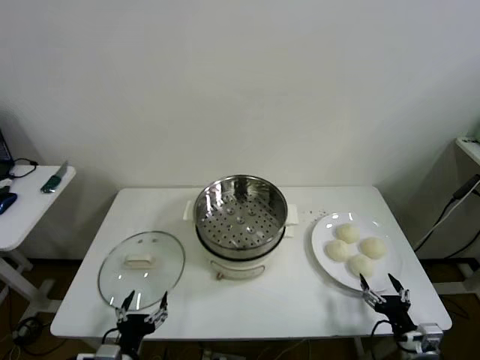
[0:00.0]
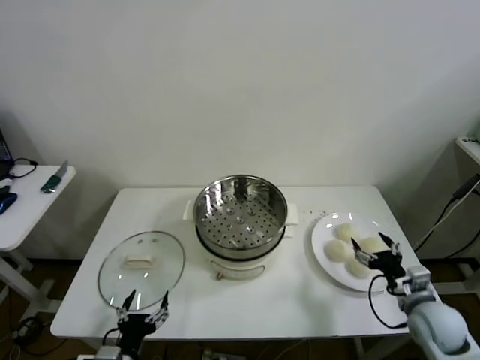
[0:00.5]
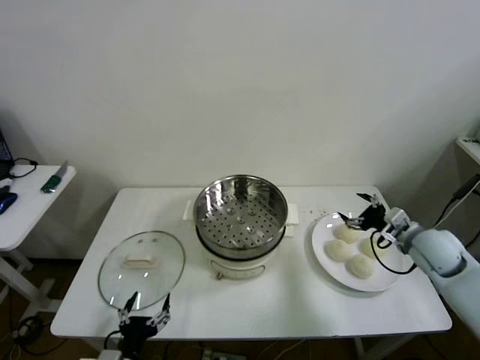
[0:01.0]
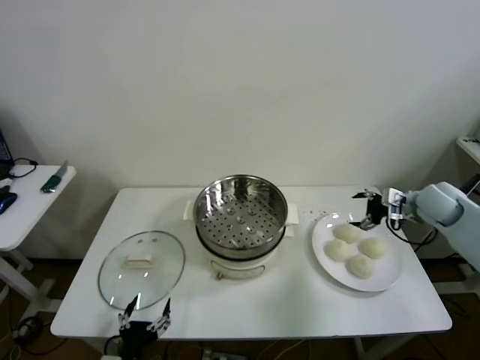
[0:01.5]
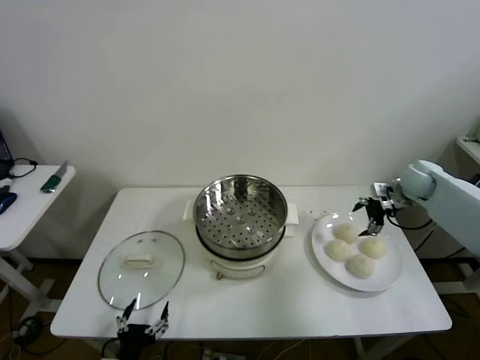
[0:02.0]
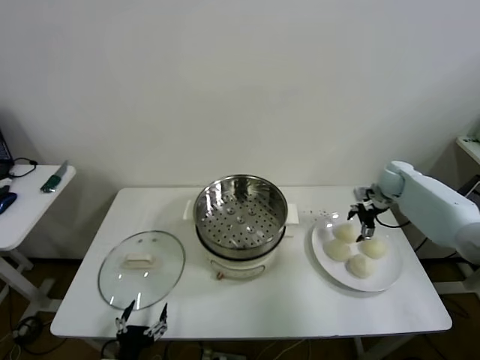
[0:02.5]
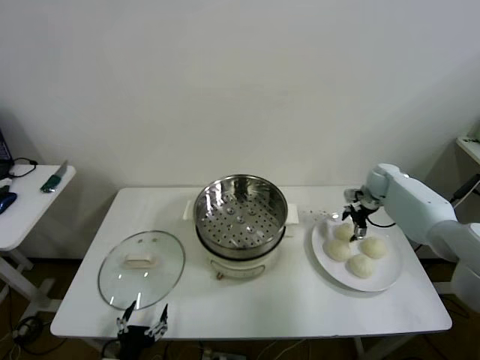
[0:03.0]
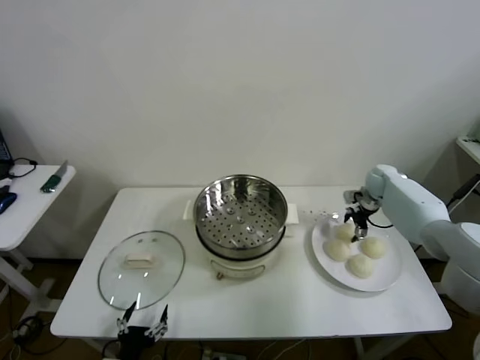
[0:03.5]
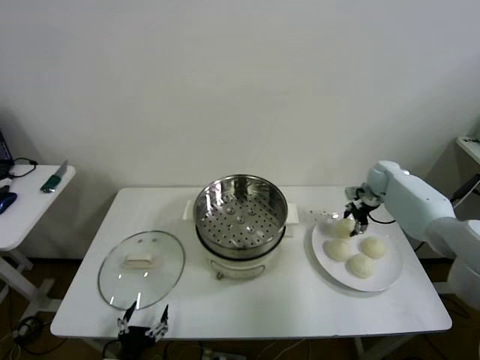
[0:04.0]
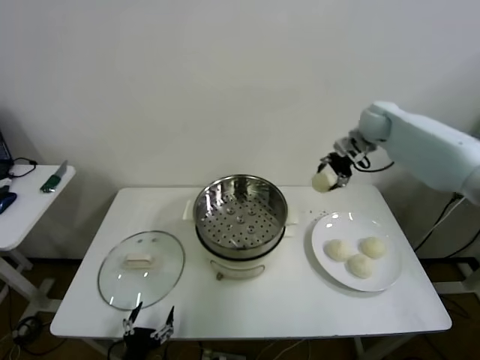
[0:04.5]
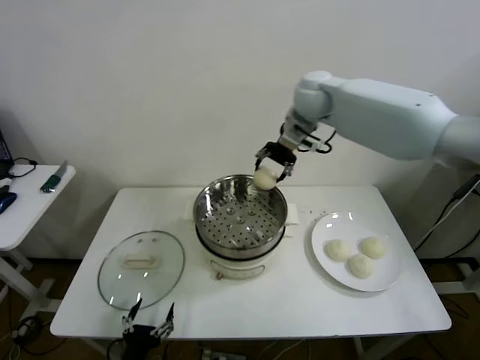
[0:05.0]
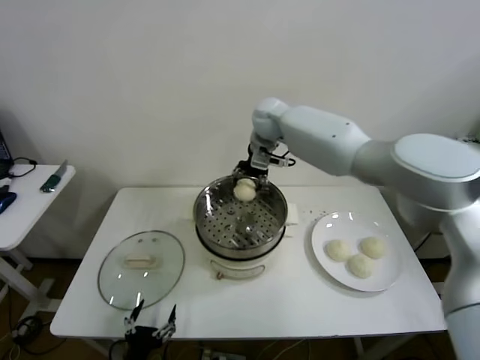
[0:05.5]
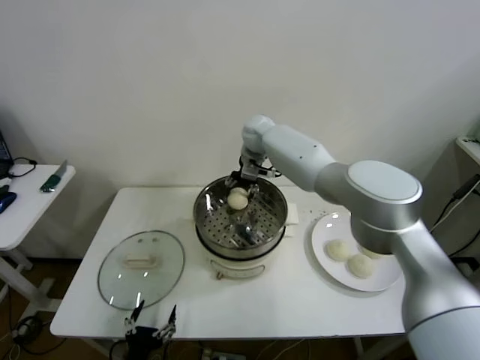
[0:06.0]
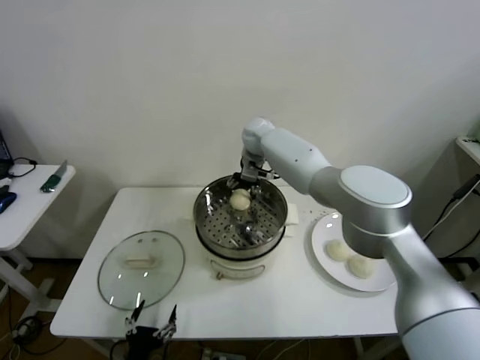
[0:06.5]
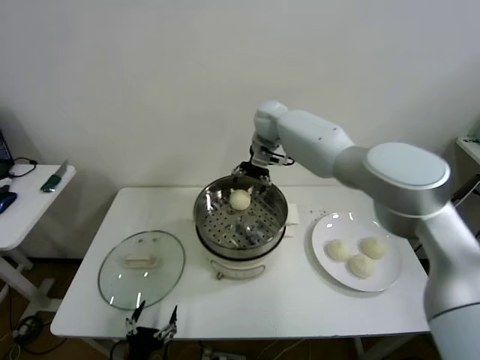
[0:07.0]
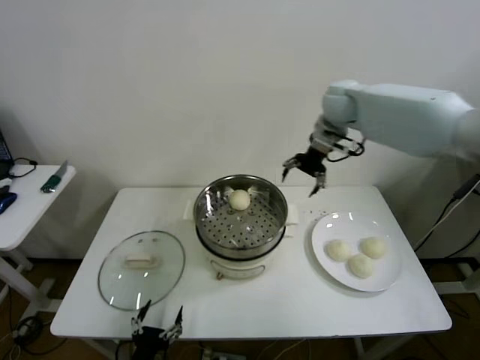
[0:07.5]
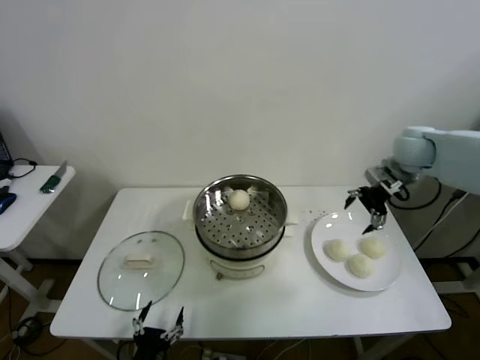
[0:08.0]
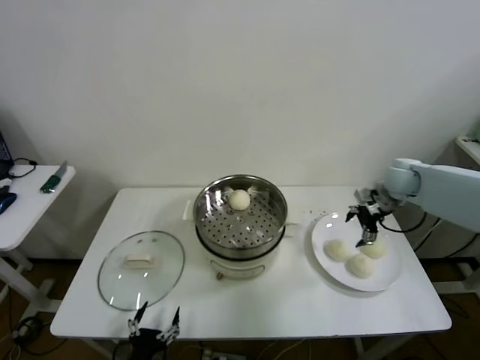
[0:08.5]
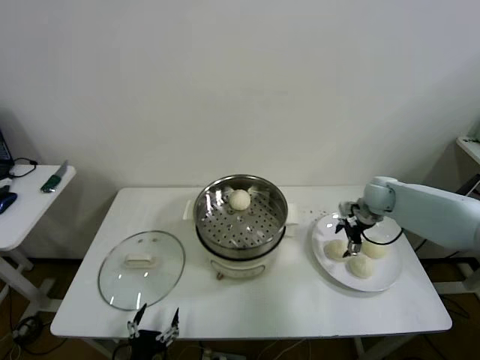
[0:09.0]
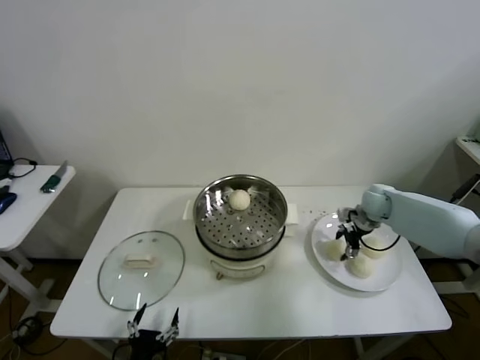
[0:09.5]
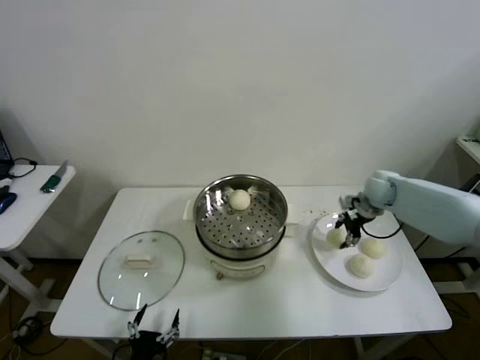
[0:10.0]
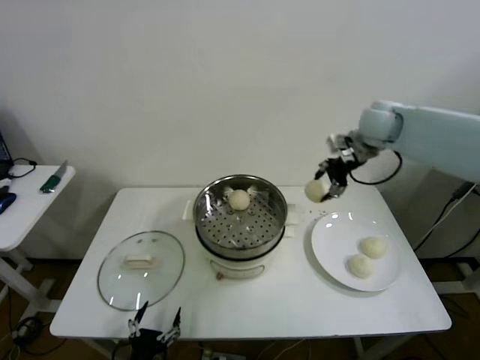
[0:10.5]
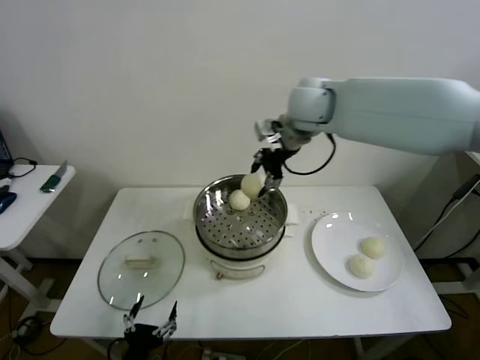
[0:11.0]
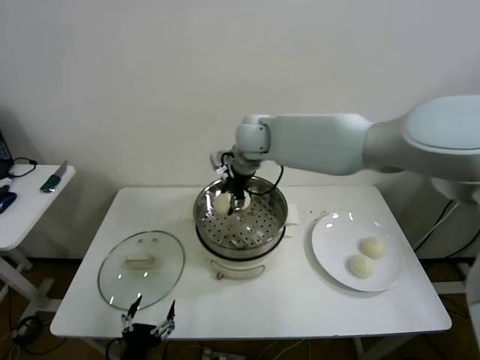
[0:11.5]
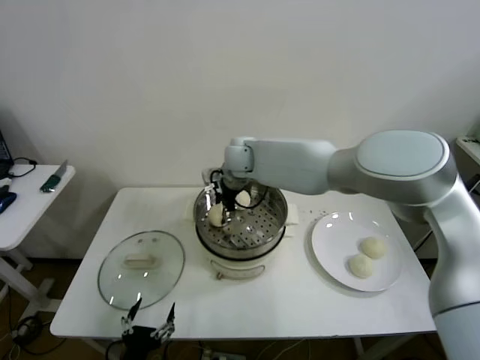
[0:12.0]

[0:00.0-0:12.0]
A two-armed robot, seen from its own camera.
Step, 0:00.0 to 0:03.5: Grasp the baozi in the plate with right gripper.
Step, 0:04.0 to 0:06.5: Place the baozi on the steamer with right gripper.
Step, 0:07.0 to 0:09.0: Grasp the baozi in the plate with right gripper.
0:02.0 to 0:04.0: The right gripper heads forward and downward, covering about 10 cm, and closes.
0:04.0 to 0:06.0: The right gripper moves to the left, some 35 cm.
0:06.0 to 0:08.0: The right gripper moves to the right, some 35 cm, and opens up.
0:08.0 to 0:10.0: The right gripper travels downward by approximately 15 cm, and closes up.
0:10.0 to 0:12.0: The right gripper heads to the left, covering some 35 cm.

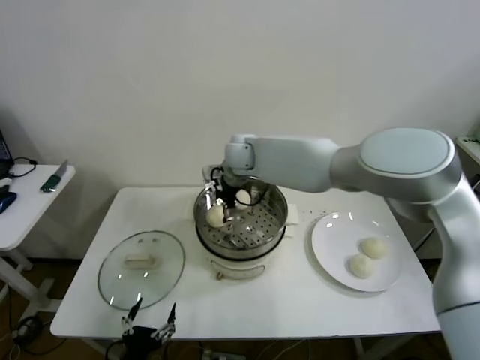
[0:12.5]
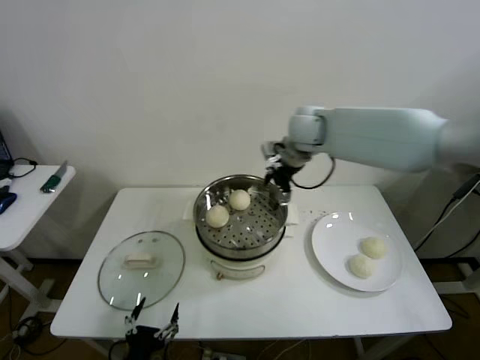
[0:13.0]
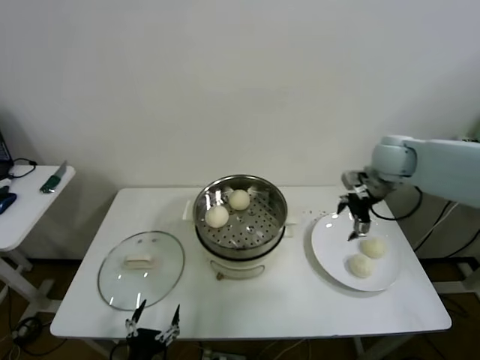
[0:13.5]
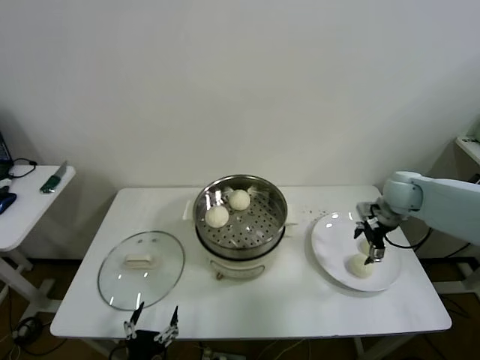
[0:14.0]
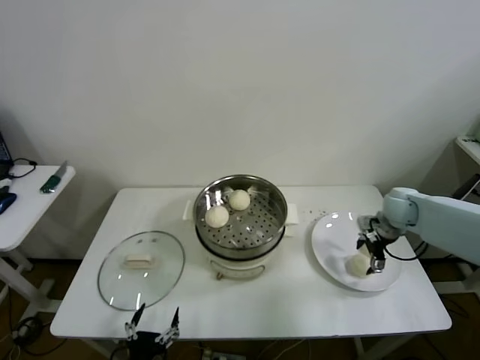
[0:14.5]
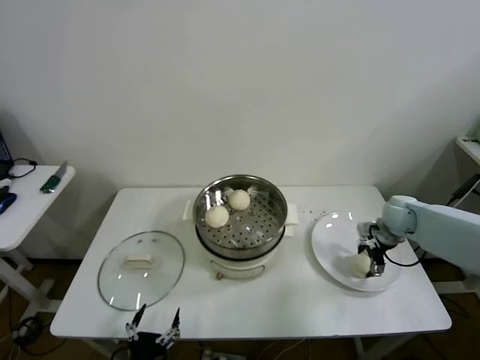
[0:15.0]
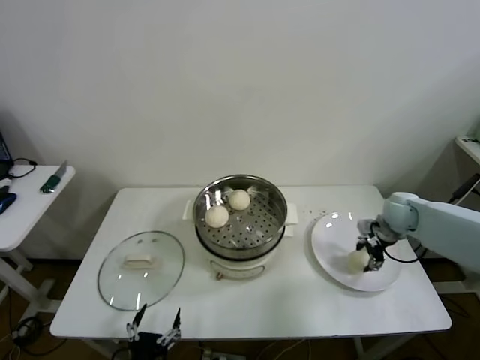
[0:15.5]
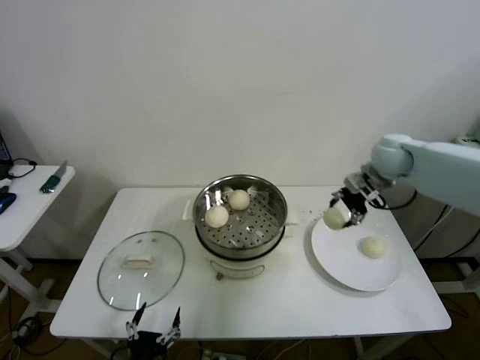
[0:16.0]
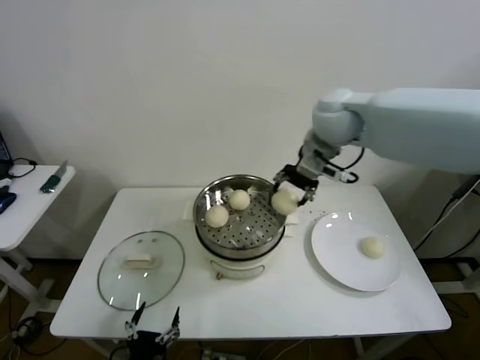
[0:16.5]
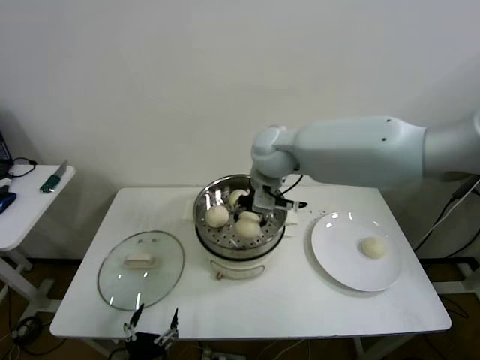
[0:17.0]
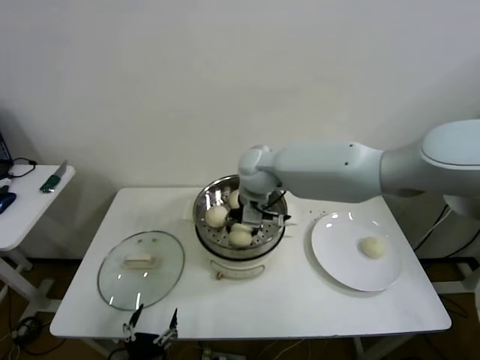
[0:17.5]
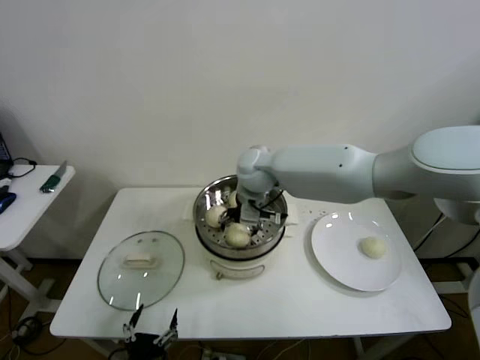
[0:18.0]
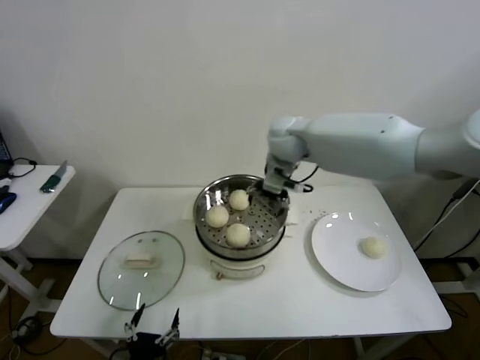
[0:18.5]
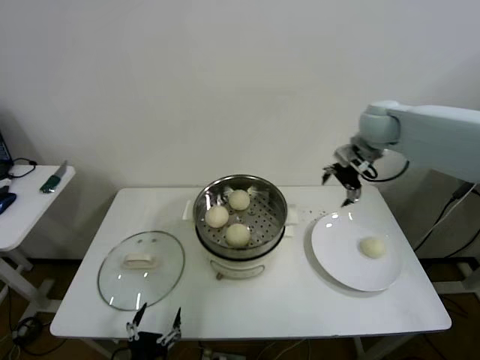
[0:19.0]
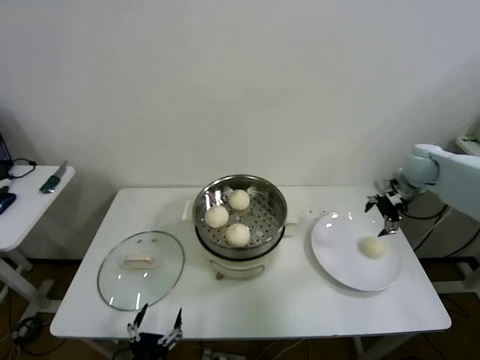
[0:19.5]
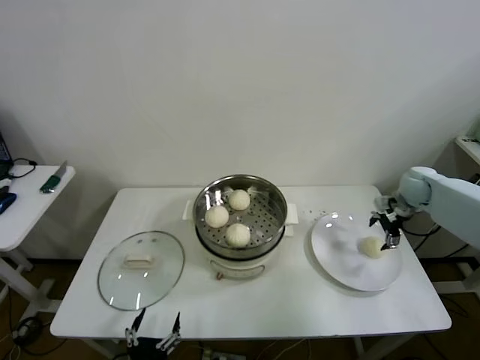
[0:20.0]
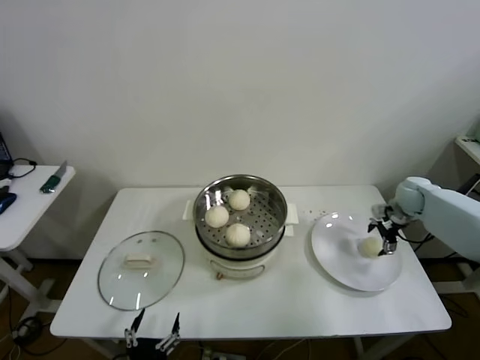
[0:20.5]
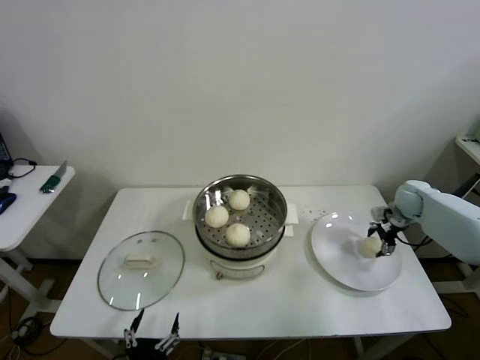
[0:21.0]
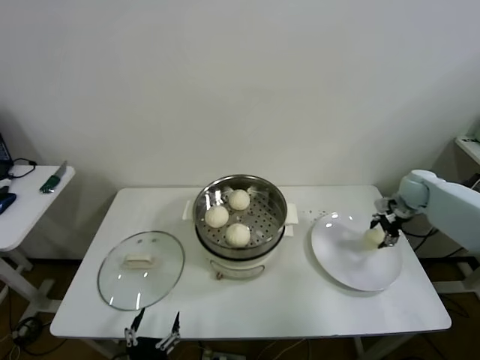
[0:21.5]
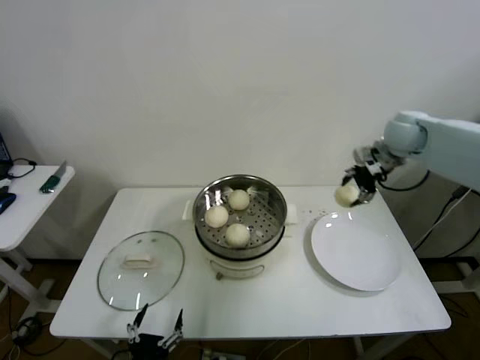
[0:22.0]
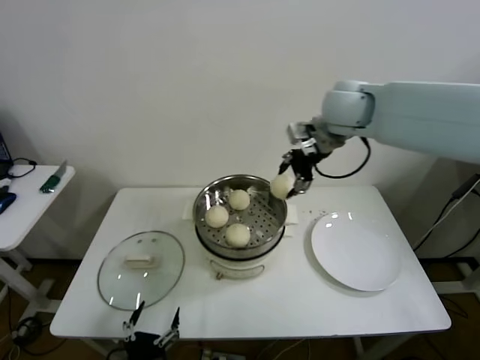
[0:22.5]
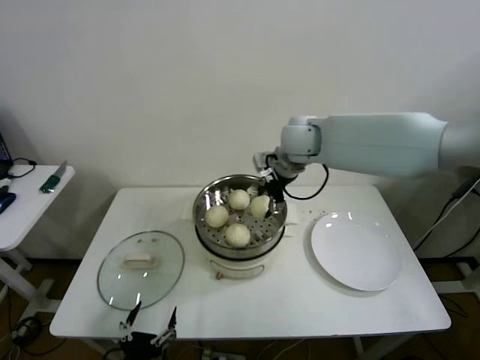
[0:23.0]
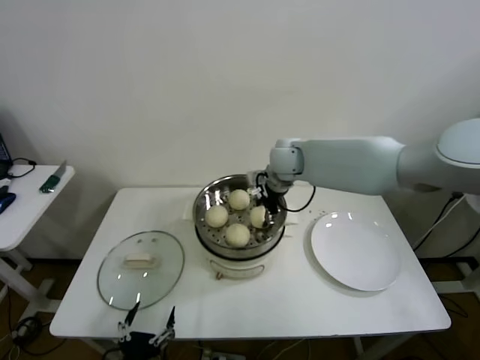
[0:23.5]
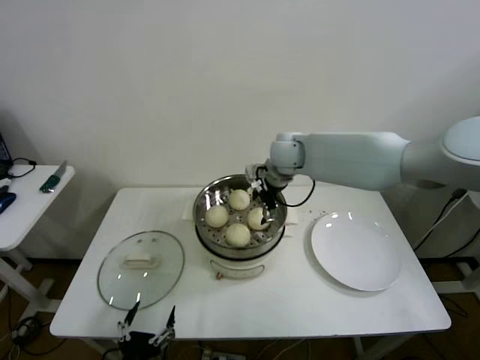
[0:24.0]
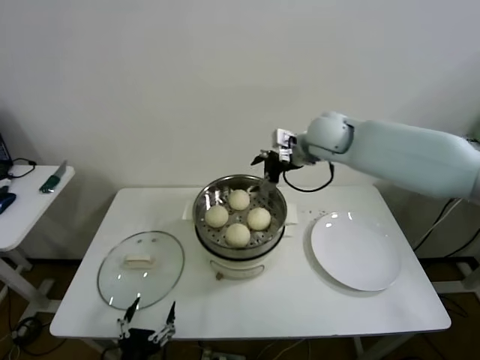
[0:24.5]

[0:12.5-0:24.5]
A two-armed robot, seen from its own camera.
Step, 0:12.5 to 0:15.0: Grasp the baozi in the plate with right gripper.
Step, 0:15.5 to 0:17.5: Place the baozi on the steamer with right gripper.
Step, 0:18.0 to 0:21.0: Grasp the baozi in the plate with right gripper.
Step, 0:21.5 to 0:23.5: Place the baozi on the steamer with right gripper.
0:12.5 to 0:14.5: The right gripper goes roughly 40 cm to the right.
0:14.5 to 0:16.5: The right gripper goes approximately 35 cm upward and to the left, and closes.
0:16.5 to 0:18.5: The right gripper moves to the left and downward, about 10 cm, and opens.
0:18.5 to 0:20.5: The right gripper heads to the right and downward, covering about 40 cm.
0:20.5 to 0:22.5: The right gripper is displaced upward and to the left by roughly 40 cm, and closes its fingers.
0:22.5 to 0:24.5: The right gripper travels downward by roughly 10 cm, and opens its fingers.

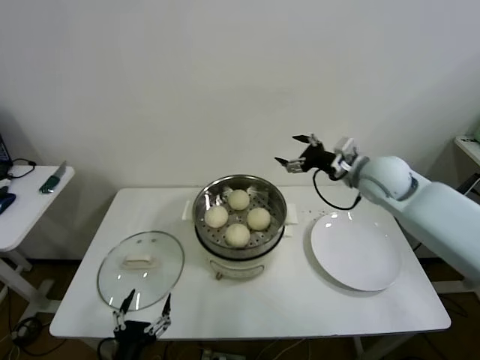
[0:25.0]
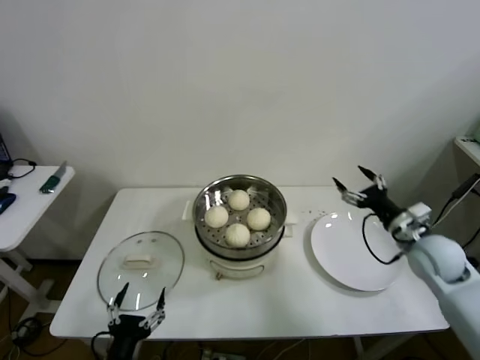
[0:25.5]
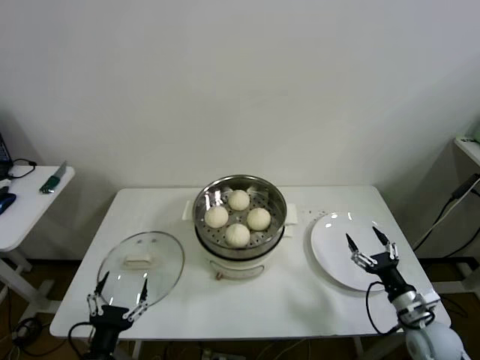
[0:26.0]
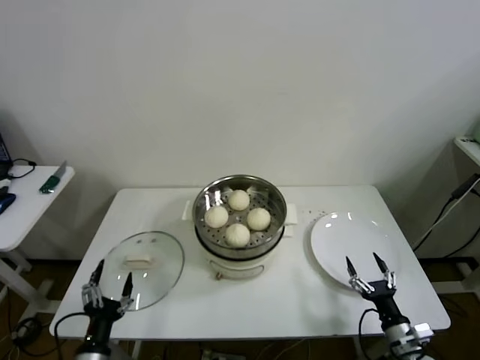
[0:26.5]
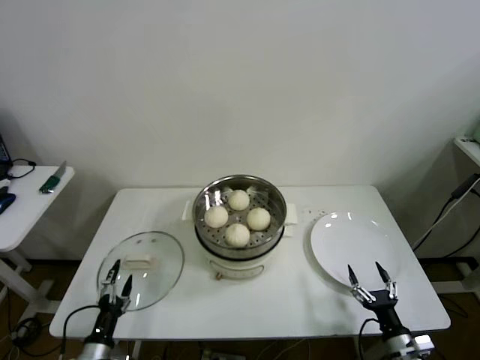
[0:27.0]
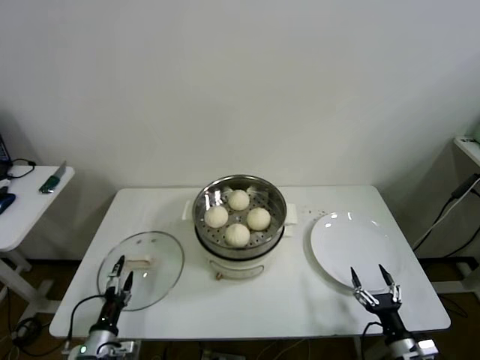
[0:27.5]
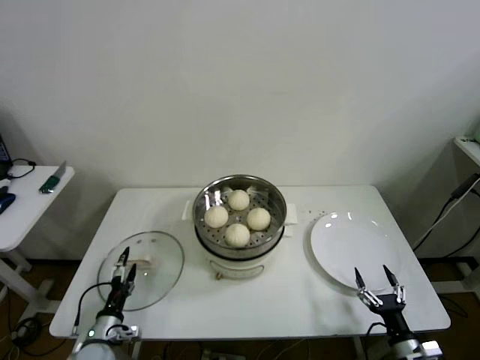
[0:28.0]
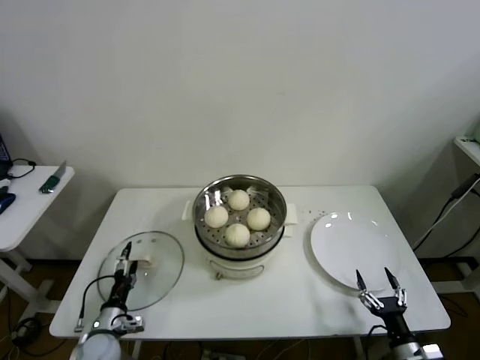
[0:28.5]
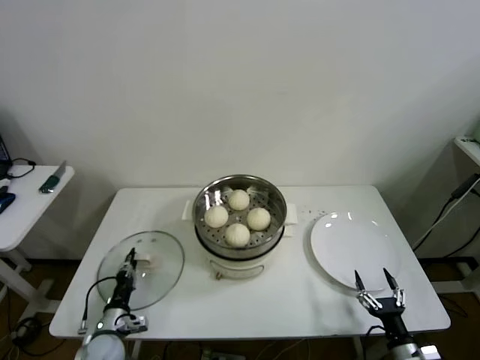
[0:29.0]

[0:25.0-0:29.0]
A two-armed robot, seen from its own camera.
0:25.0 to 0:27.0: The left gripper heads to the left, downward and forward, covering roughly 15 cm. The right gripper shifts roughly 50 cm downward and backward.
0:27.0 to 0:29.0: The left gripper goes some 10 cm forward, and closes.
